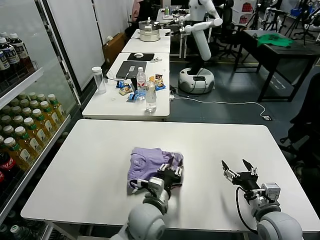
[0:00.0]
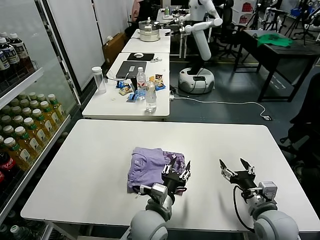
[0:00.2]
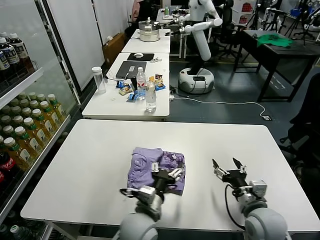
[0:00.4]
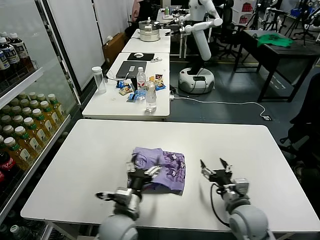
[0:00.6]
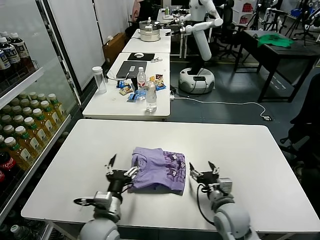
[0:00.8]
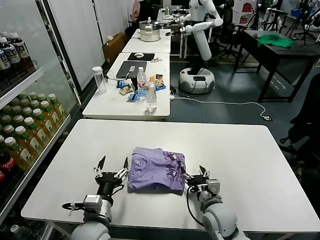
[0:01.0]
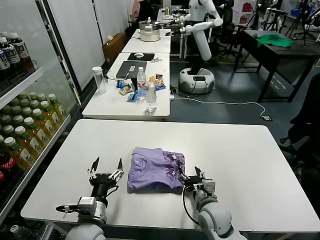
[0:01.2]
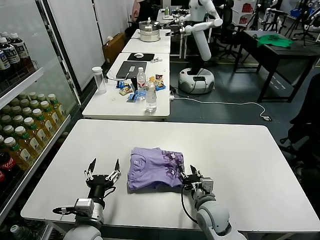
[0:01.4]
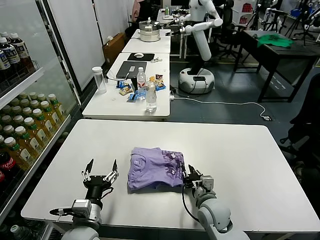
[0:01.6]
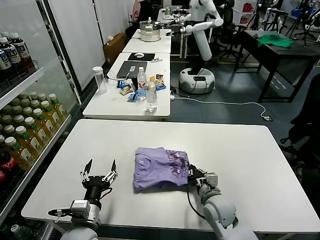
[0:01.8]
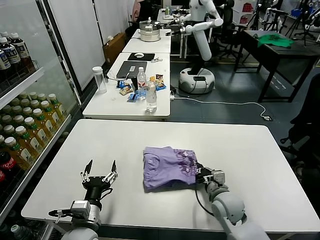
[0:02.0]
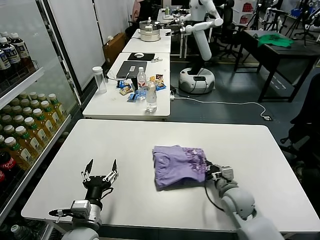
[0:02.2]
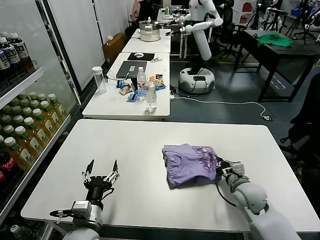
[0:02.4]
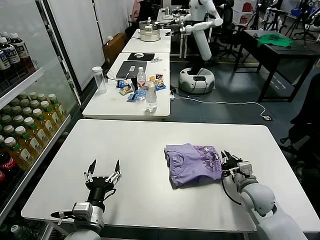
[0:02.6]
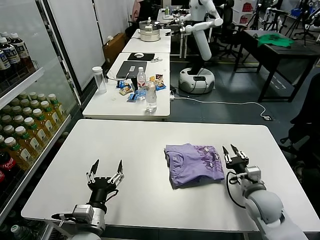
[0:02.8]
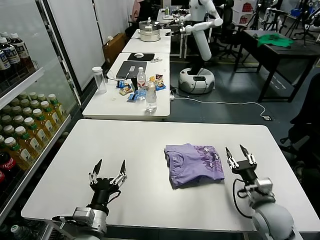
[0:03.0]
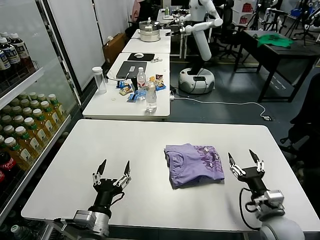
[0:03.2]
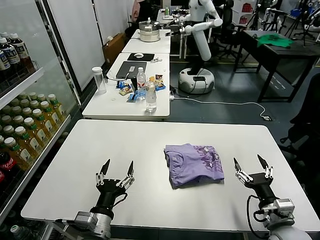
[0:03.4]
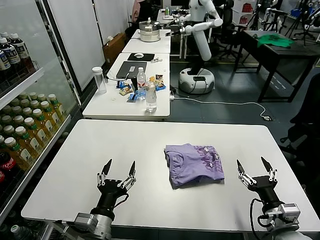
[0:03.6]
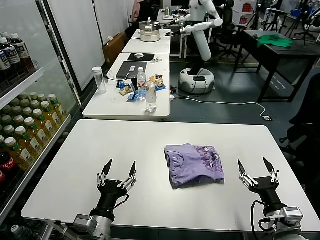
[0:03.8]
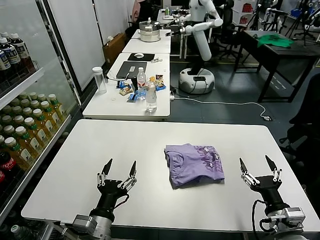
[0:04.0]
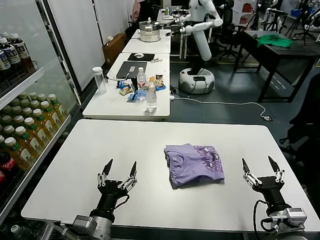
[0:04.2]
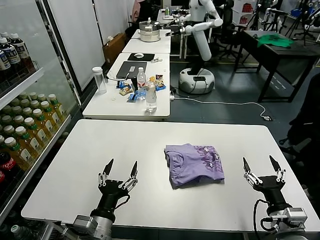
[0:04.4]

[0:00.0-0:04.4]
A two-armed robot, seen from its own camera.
Task of the whole recording: fold and organize the clothes.
Step, 0:00.6 to 0:03.0: Drag the clothes to the center of the table.
0:00.0 to 0:01.4: The right gripper is displaced to the left, downward and forward by roughly 20 cm, while the left gripper shifts about 15 cm to the left, and opens its fingers.
0:01.4 to 0:03.0: The right gripper shifts roughly 15 cm to the right, and closes, then opens again.
0:03.0 to 0:04.4: The right gripper shifts some 10 cm backward, and opens its fingers.

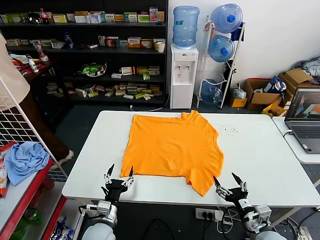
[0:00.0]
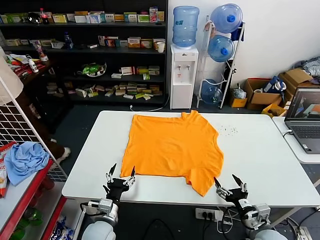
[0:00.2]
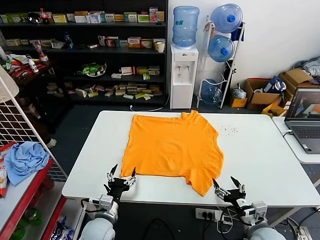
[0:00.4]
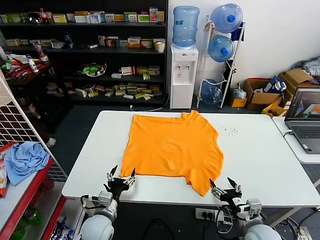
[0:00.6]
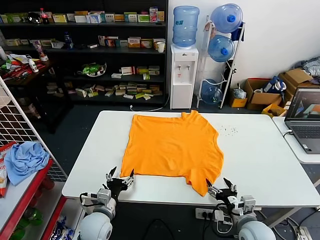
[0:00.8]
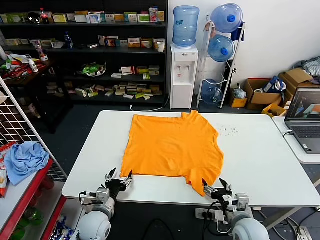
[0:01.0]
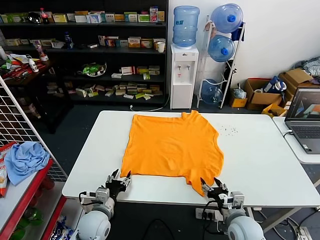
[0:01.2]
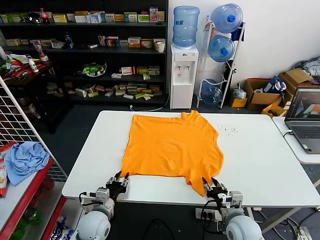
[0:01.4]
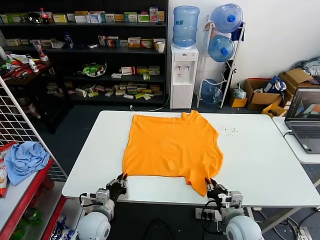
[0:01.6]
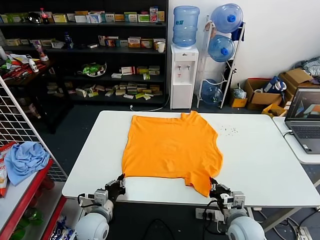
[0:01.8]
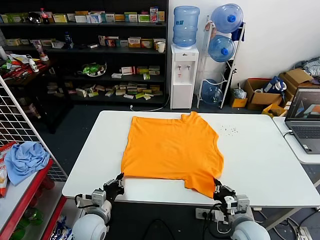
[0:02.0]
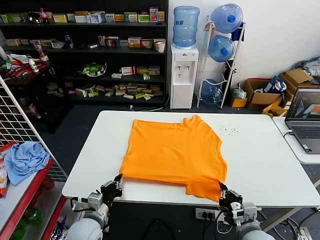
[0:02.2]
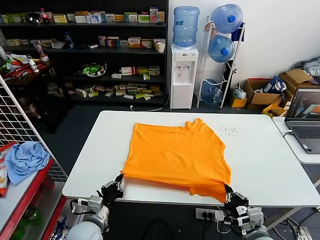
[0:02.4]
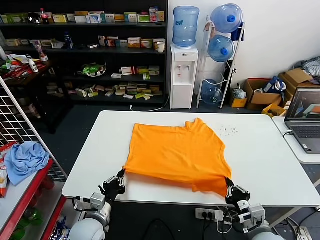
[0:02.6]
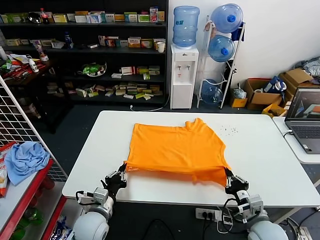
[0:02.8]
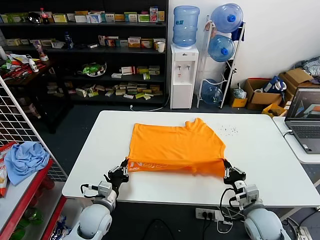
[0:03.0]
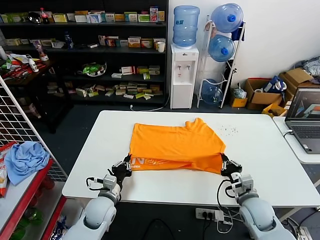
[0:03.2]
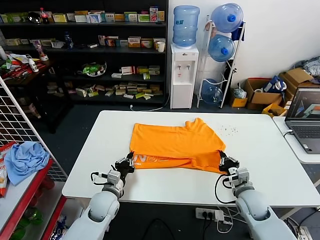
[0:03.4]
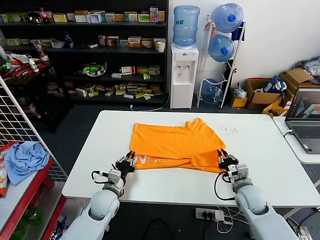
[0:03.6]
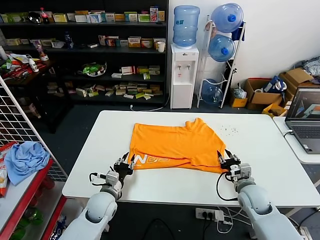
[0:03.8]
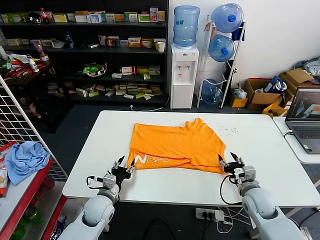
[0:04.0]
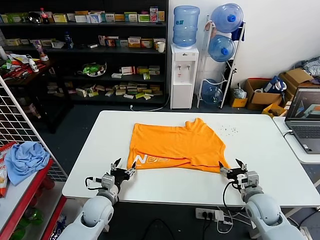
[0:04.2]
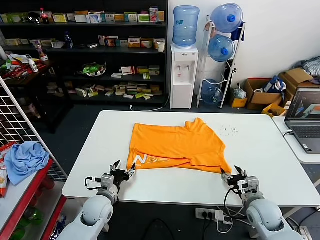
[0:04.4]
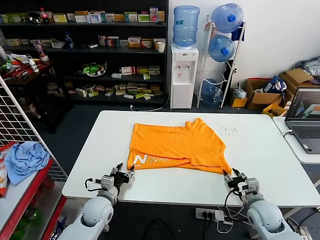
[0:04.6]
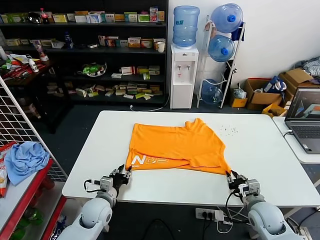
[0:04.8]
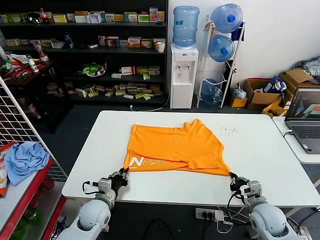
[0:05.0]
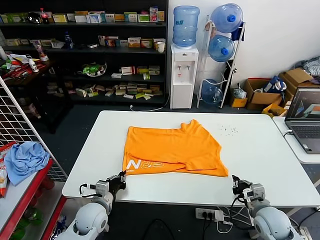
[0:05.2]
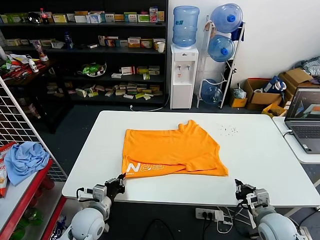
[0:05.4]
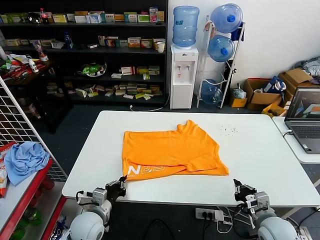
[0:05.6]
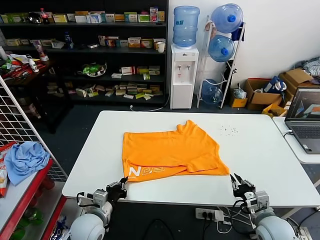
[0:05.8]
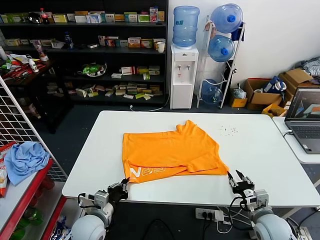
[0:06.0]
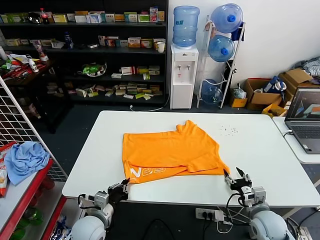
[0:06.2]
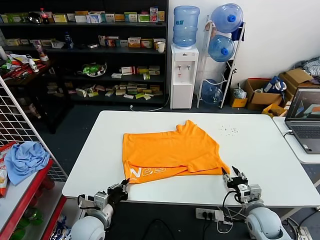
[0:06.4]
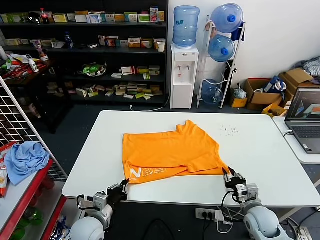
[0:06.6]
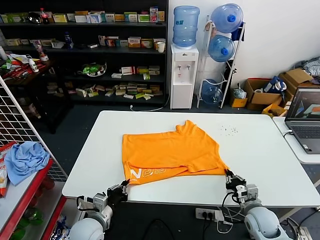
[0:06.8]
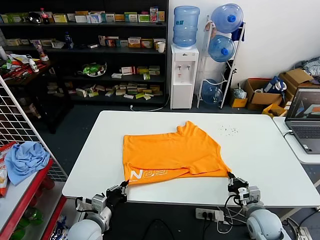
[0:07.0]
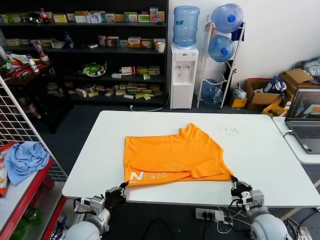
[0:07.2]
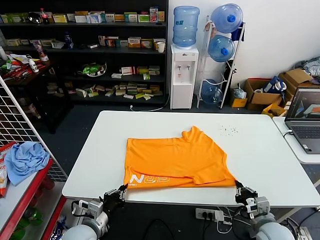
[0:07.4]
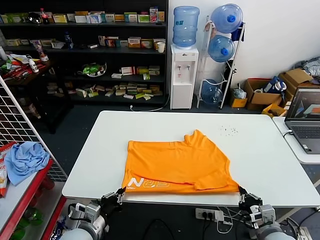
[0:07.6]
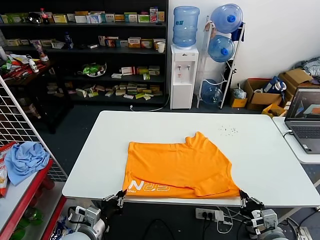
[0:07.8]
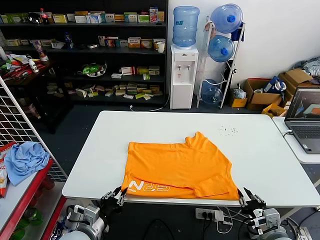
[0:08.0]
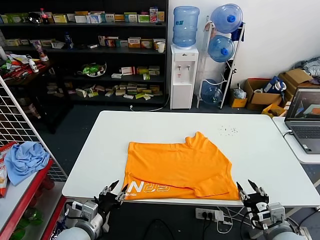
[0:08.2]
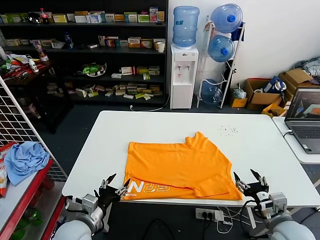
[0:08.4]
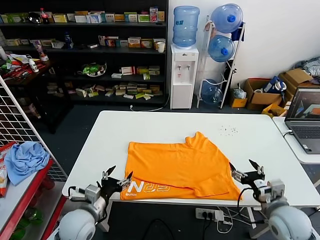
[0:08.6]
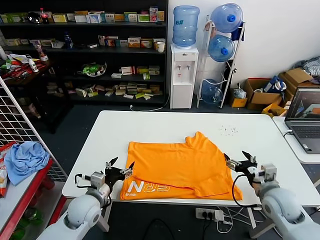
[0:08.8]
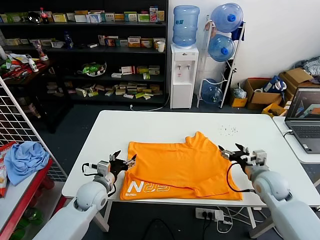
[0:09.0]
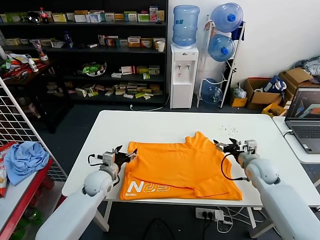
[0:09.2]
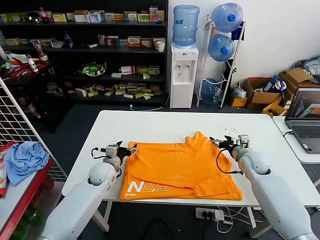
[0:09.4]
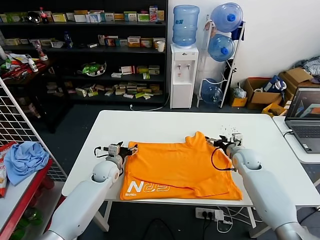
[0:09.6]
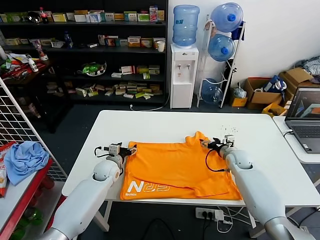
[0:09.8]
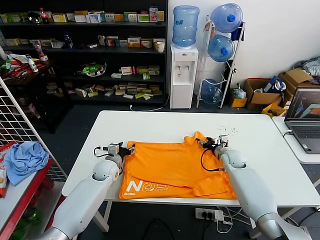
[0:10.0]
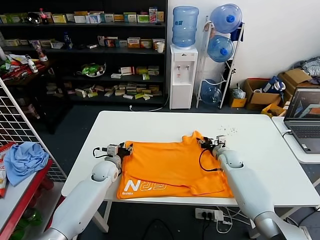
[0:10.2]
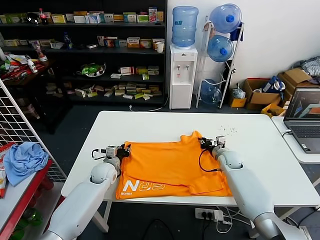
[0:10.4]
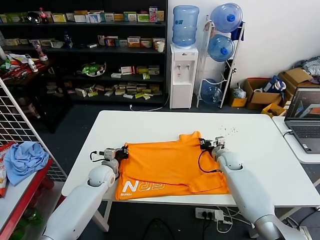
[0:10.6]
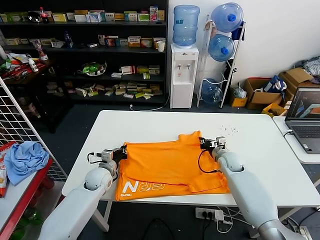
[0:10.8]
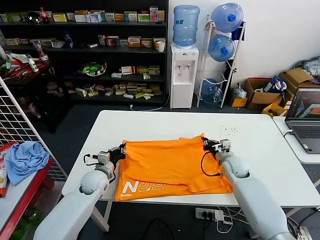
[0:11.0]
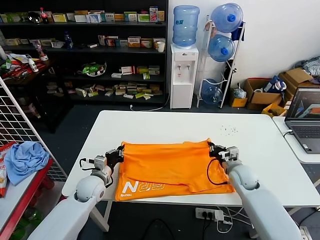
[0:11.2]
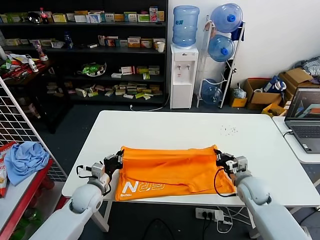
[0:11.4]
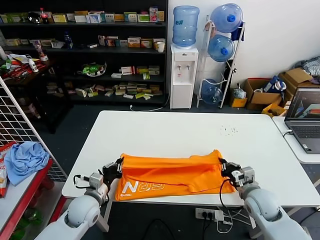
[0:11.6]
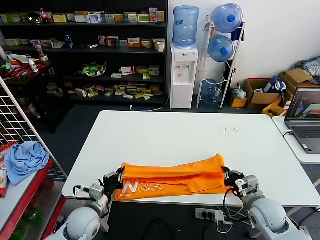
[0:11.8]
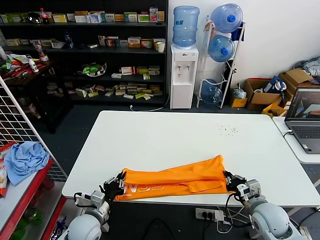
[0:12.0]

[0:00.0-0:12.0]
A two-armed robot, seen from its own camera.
Task of the whole recording: fold and organize the clothes.
Step, 0:00.0 to 0:01.8: use both grippers simultaneously to clamp the lower edge of the clothing fabric.
Step, 0:02.0 to 0:03.6: use both grippers to drag the lower edge of the fabric forward and fold it over the upper edge.
Step, 0:03.8 to 0:08.0: Drag the clothes downward with both gripper.
Step, 0:08.2 to 0:10.6: use both grippers simultaneously to clamp the upper edge of the clothing fabric.
0:01.6 to 0:03.0: The right gripper shifts some 5 cm to the right, and travels backward and back again, some 5 cm each way.
0:03.0 to 0:04.4: The left gripper opens up. The right gripper opens up.
0:04.4 to 0:06.0: The left gripper goes some 5 cm backward, and closes; the right gripper changes place by about 5 cm, and closes, then opens again.
0:06.0 to 0:07.6: The right gripper moves backward, some 5 cm, and closes.
0:07.6 to 0:09.0: The right gripper moves forward and upward, about 15 cm, and opens its fingers. Meanwhile the left gripper shifts some 15 cm forward, and opens.
0:09.0 to 0:10.4: The right gripper shifts approximately 20 cm forward and downward, and closes; the left gripper travels forward by approximately 10 cm, and closes up.
0:10.4 to 0:12.0: Both grippers travel together backward, some 20 cm.

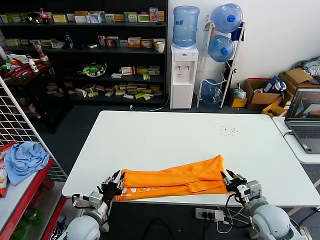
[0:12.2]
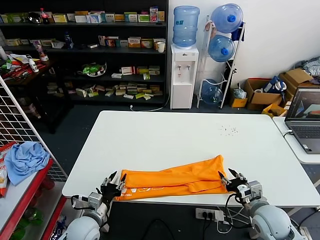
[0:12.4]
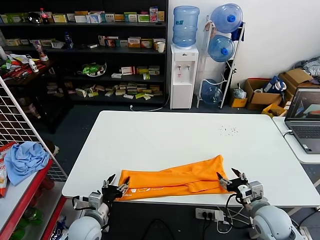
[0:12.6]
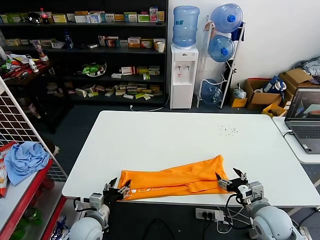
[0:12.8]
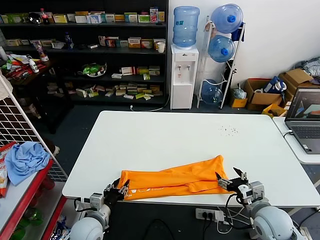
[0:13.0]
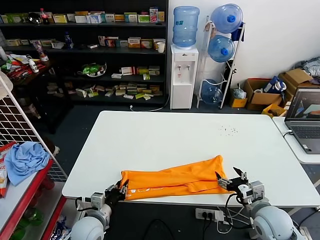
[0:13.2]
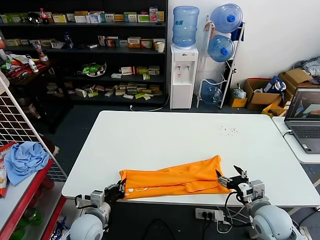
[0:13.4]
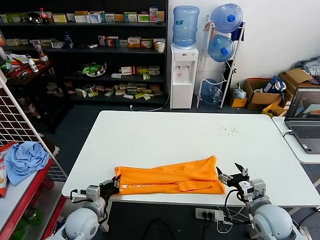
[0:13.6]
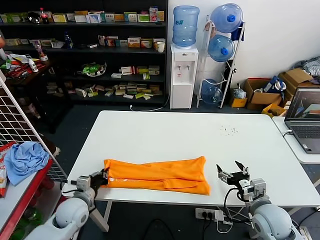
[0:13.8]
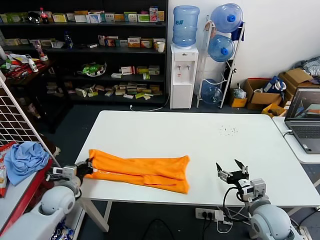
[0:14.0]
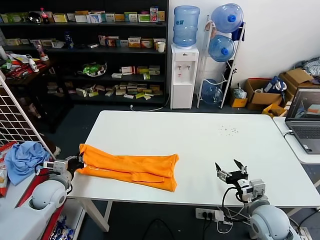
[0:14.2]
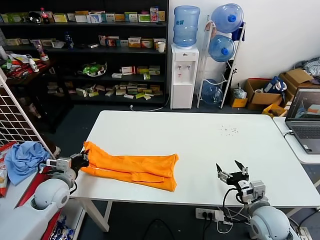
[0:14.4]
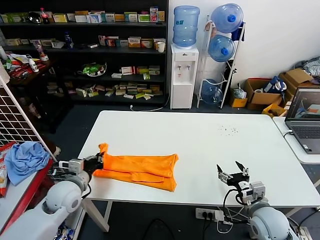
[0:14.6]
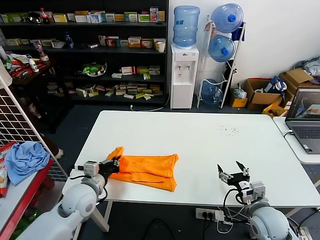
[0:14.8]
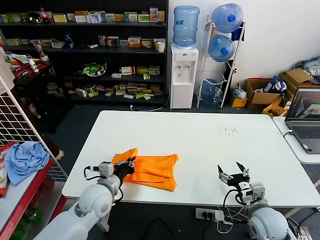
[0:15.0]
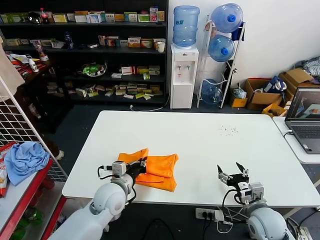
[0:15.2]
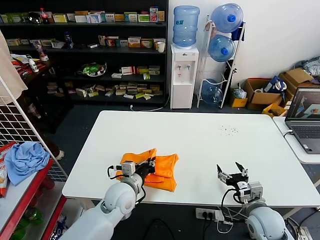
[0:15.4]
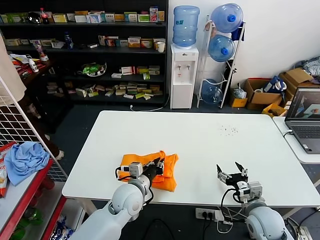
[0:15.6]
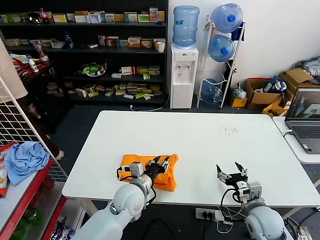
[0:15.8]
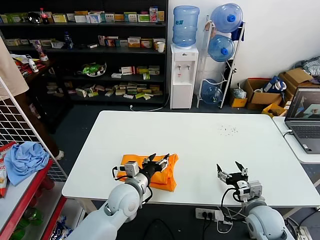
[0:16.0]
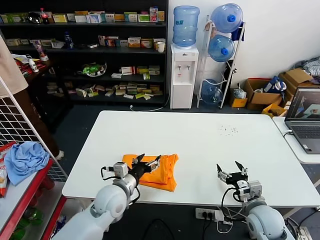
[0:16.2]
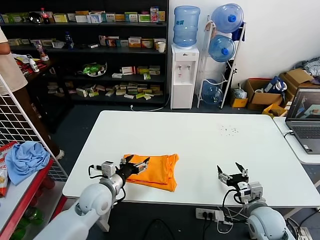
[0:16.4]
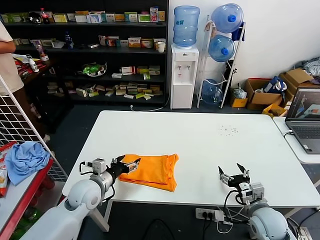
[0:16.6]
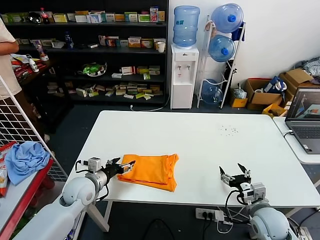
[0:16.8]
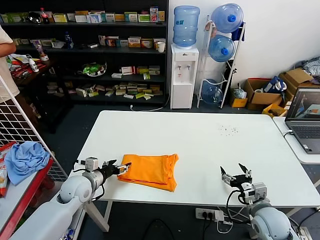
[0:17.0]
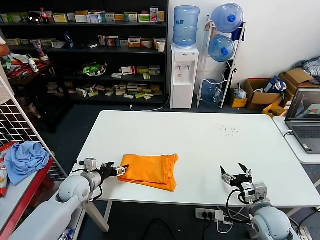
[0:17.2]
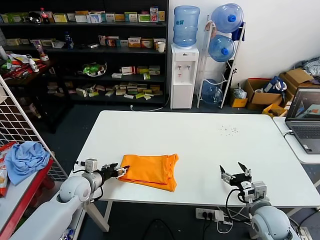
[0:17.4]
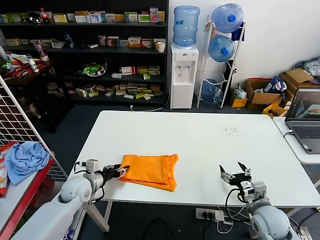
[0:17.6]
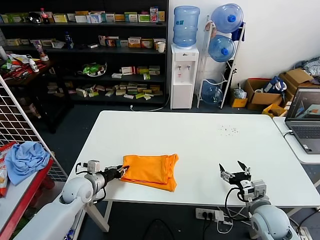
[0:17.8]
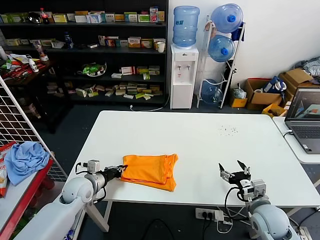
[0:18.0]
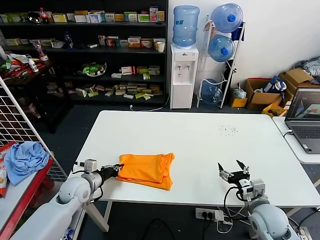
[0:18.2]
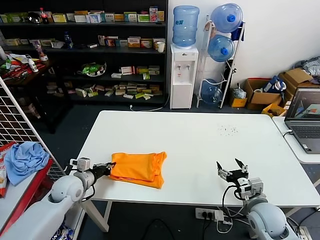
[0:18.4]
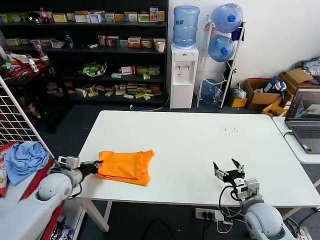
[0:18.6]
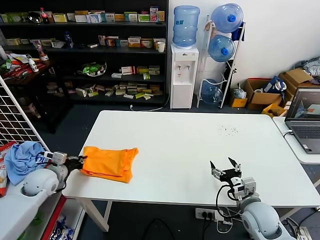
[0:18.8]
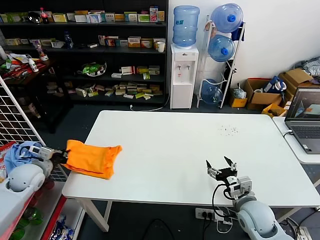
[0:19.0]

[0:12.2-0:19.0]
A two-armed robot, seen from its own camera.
Task of the whole recording: fold and organize the clothes.
Step, 0:12.4 to 0:13.0: use the left gripper to clamp the left edge of the fabric.
Step, 0:13.2 to 0:15.8: use the left gripper to drag the left edge of the fabric to the left and folds it over the right edge.
0:12.2 to 0:13.6: The right gripper opens up. The left gripper opens, then closes again.
0:13.6 to 0:15.0: The left gripper is displaced upward by roughly 10 cm, and goes to the left and returns, about 10 cm each way.
0:15.0 to 0:16.2: The left gripper is displaced to the right by some 5 cm, and opens.
0:16.2 to 0:17.6: The left gripper goes some 15 cm to the left.
0:17.6 to 0:19.0: The left gripper heads to the left and upward, covering some 15 cm, and closes up.
